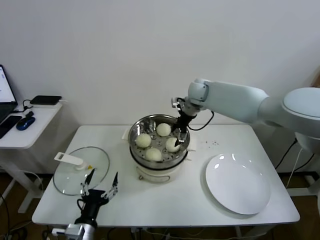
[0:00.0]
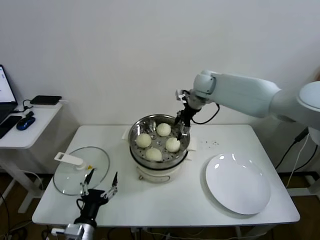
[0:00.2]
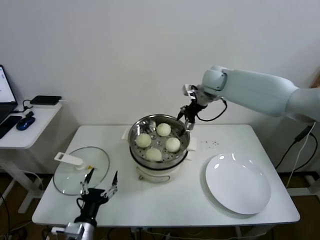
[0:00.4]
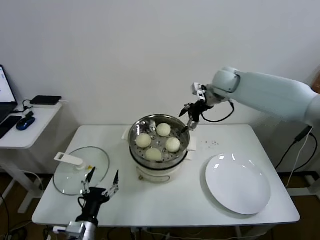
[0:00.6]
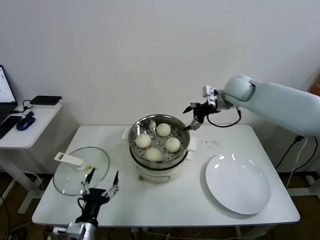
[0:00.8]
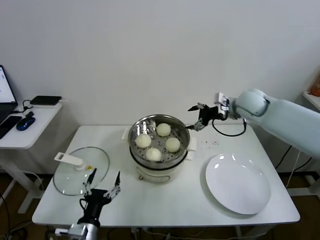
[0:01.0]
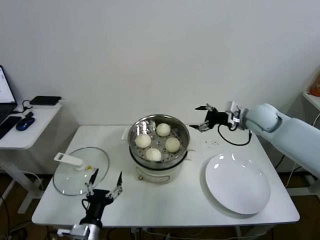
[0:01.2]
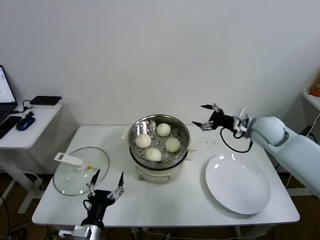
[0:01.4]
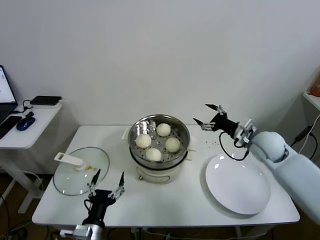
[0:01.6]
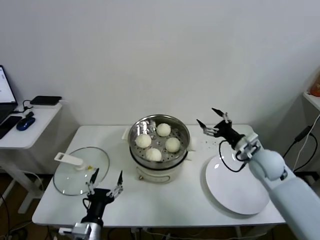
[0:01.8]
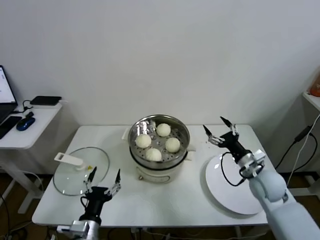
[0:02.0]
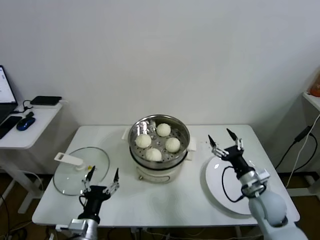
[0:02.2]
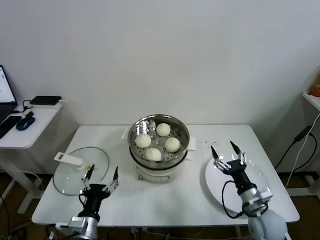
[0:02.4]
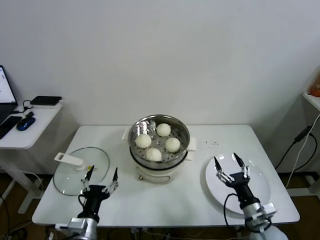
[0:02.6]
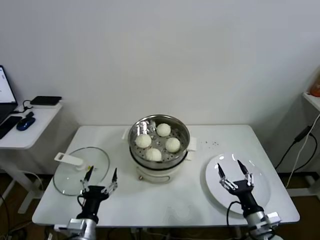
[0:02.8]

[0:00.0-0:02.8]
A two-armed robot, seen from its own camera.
Task of the whole recording: take steamed baozi put them in steamer.
0:00.0 to 0:01.4: The right gripper is displaced to the right and backward by some 25 cm.
0:01.4 to 0:02.8: The right gripper shifts approximately 35 cm backward and downward.
